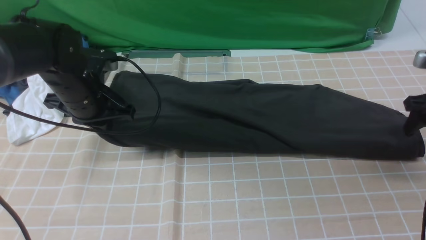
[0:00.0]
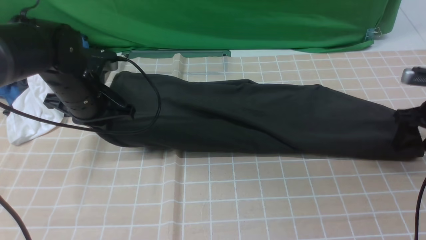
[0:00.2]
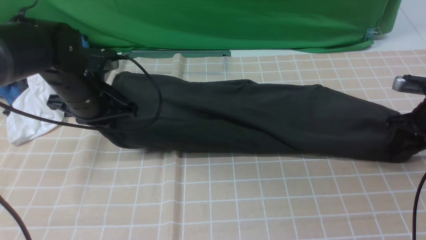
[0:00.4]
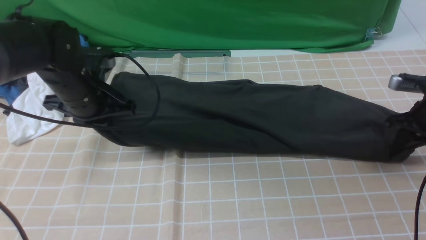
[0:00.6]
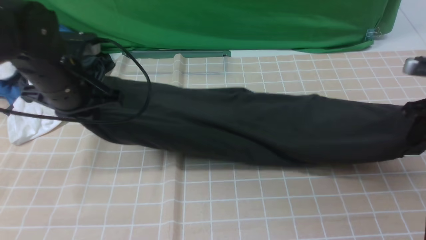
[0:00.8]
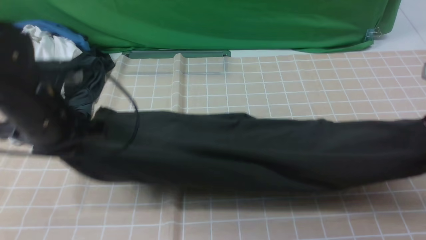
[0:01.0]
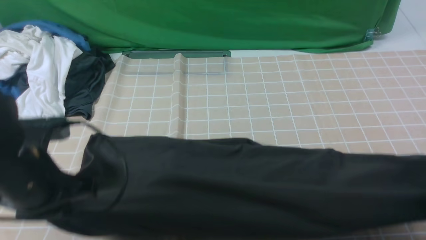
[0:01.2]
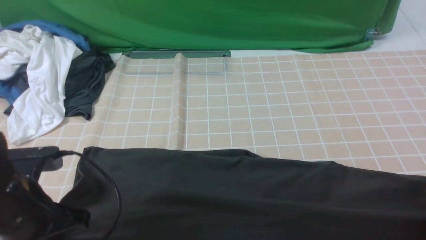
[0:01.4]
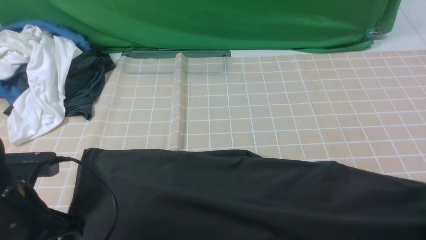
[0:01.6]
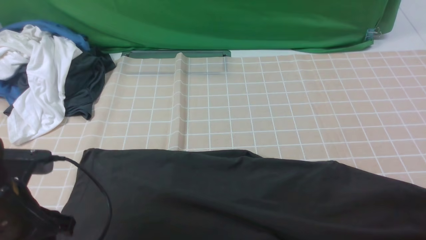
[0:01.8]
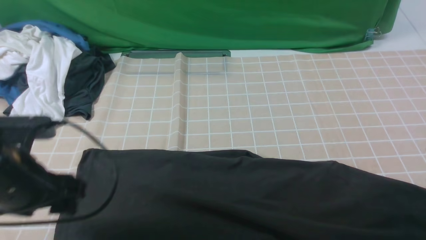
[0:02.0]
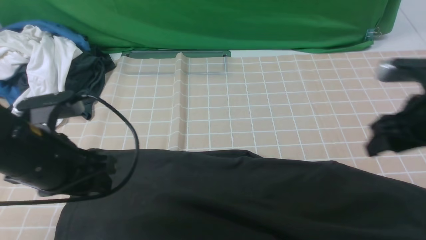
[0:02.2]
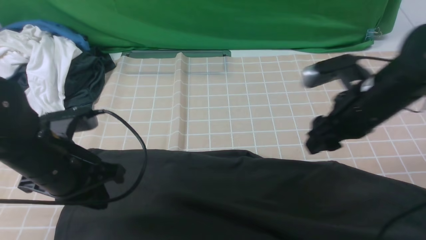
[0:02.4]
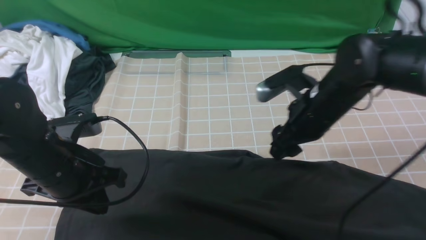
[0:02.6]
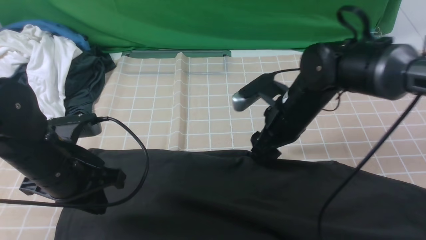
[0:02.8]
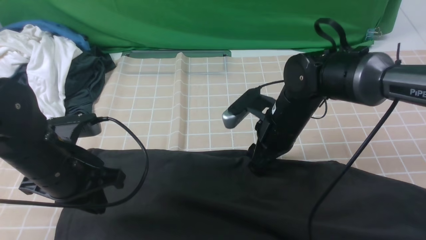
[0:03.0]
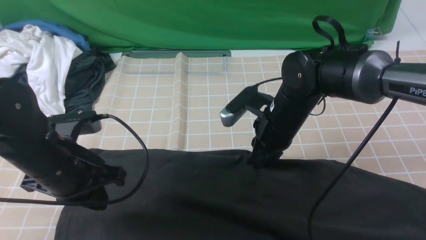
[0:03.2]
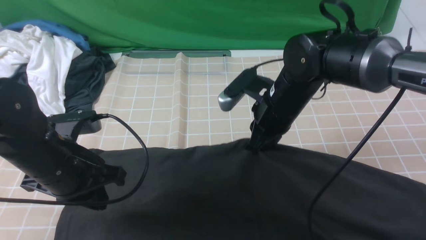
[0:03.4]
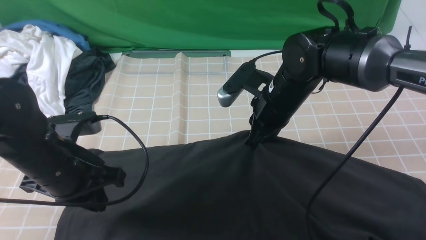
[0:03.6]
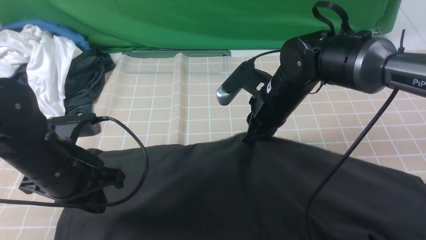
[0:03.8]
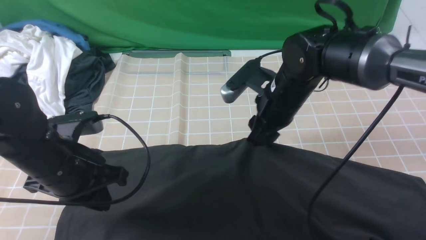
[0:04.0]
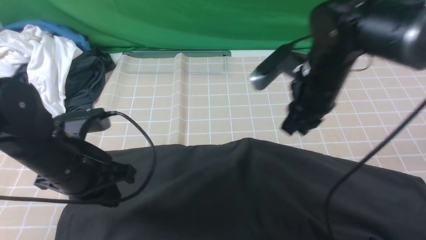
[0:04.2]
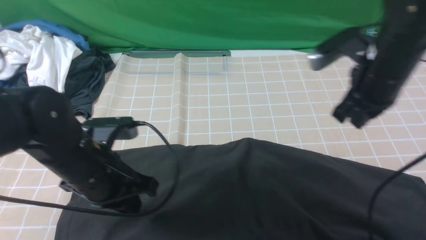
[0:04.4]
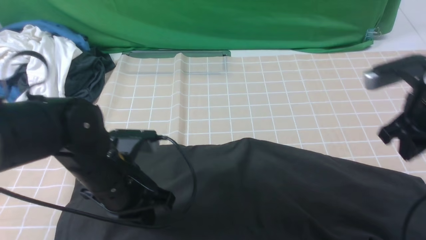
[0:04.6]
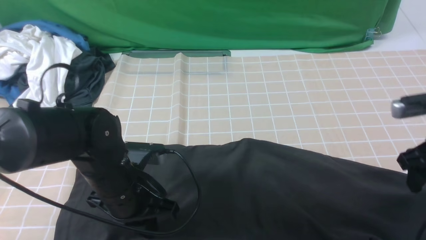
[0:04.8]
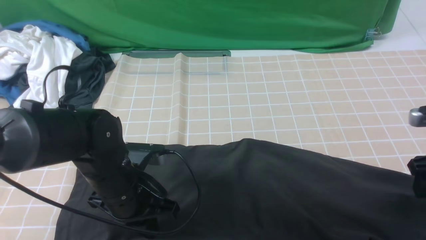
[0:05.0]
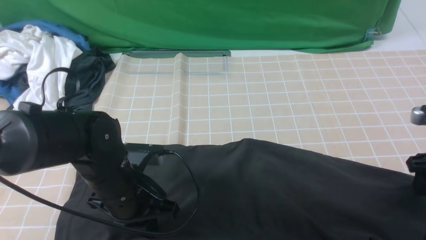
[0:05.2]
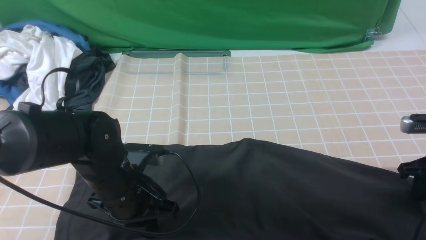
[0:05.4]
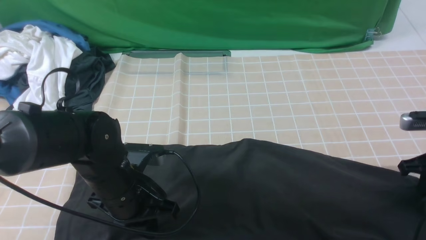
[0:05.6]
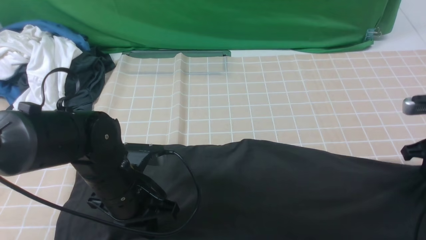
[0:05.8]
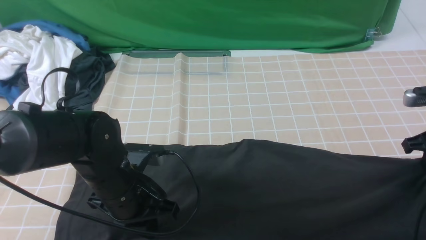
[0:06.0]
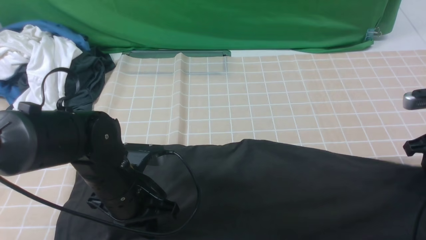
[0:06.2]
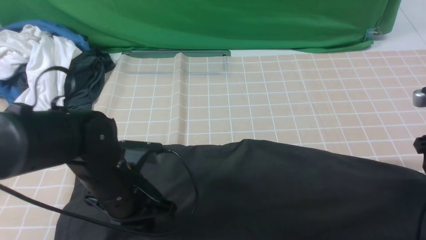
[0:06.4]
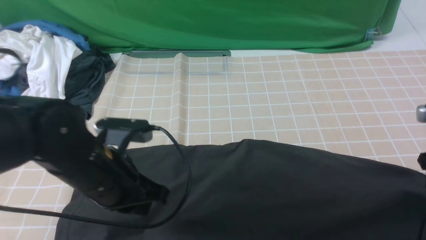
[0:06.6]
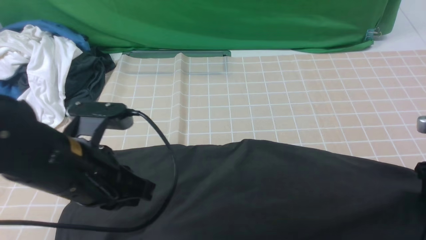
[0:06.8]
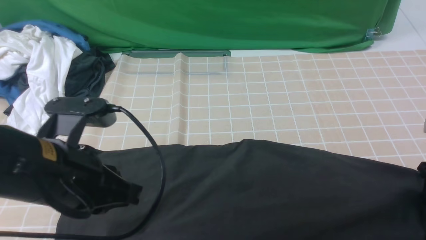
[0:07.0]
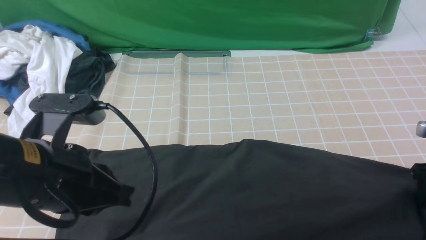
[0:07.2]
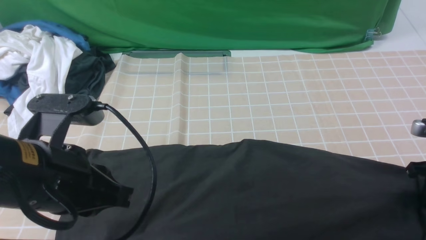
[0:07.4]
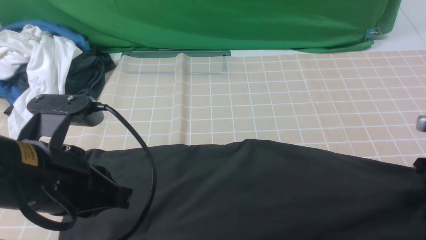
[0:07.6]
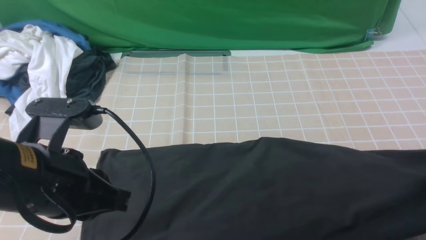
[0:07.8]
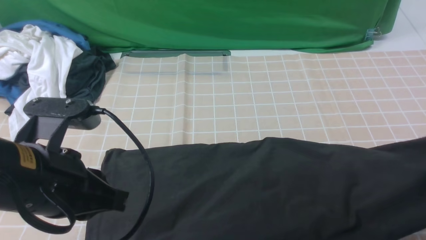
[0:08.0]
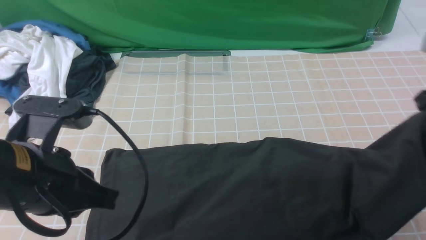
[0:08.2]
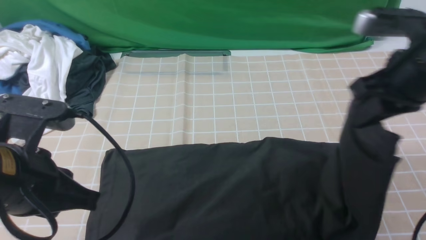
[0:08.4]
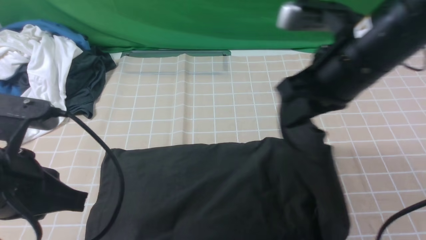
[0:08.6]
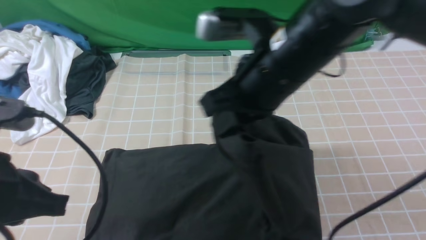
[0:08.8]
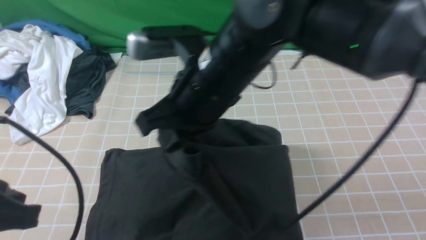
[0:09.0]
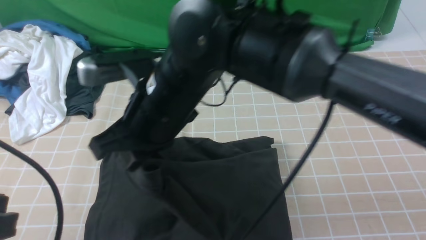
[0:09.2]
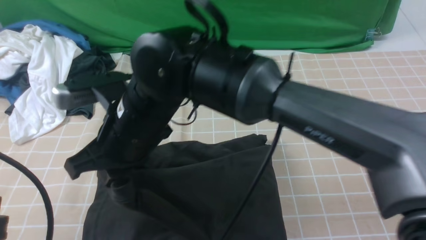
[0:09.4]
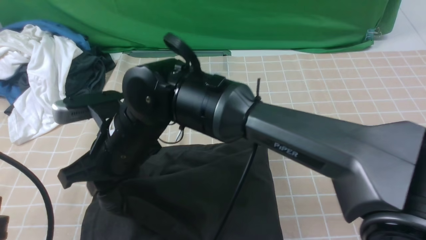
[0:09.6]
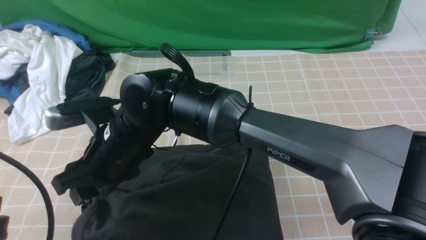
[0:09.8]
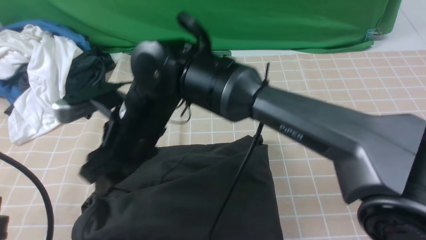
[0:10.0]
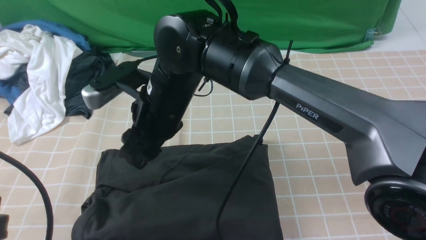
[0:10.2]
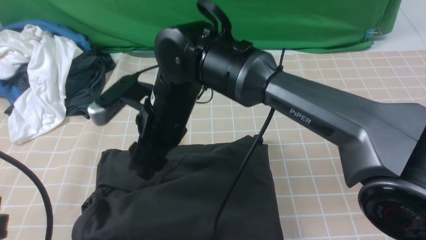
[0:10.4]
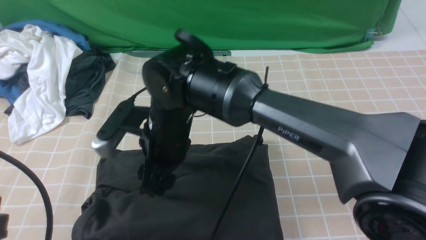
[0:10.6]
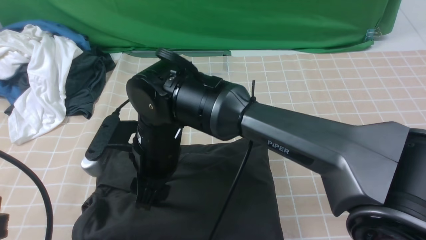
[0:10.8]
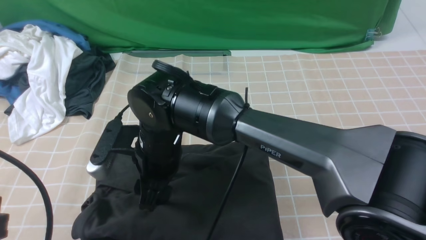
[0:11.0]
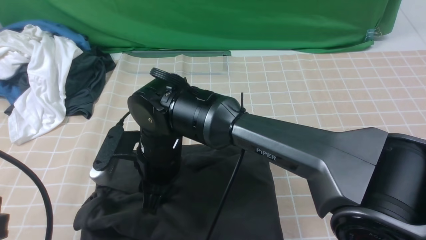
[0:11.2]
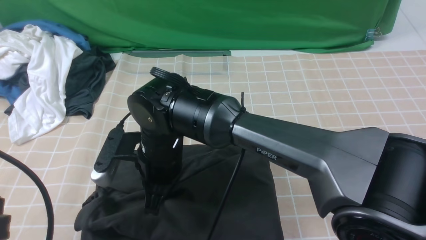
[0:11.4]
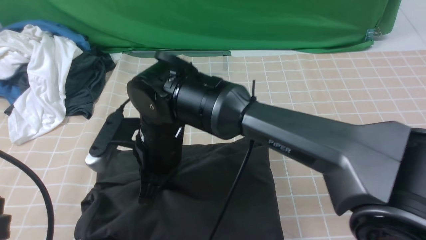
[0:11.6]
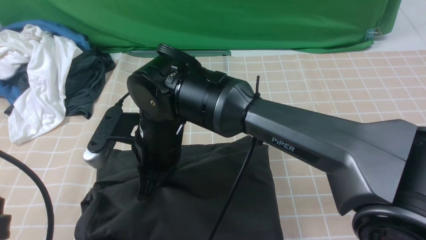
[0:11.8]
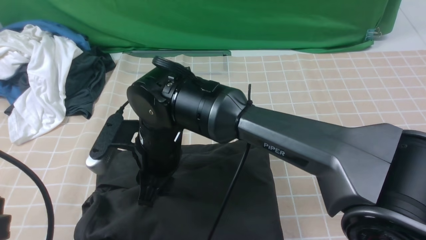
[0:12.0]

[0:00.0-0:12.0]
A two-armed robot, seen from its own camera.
Step, 0:00.0 to 0:07.4: use the right arm to clamp the right edge of the fabric.
Step, 0:07.6 to 0:10.0: use the right arm to drag the right edge of the fabric to the left and folds it over the left edge.
0:00.0 to 0:01.6: The grippers both shift backward by roughly 15 cm. The left gripper opens its fingers. The right gripper closes up.
0:01.6 to 0:03.0: The left gripper shifts roughly 5 cm forward, and closes up, while the right gripper goes approximately 30 cm to the left and forward, and opens, then closes again.
0:03.0 to 0:04.4: The right gripper goes some 15 cm to the right and upward, and closes its fingers.
0:04.4 to 0:06.0: The left gripper changes place by some 5 cm; the right gripper heads to the right and downward, covering roughly 15 cm, and opens and closes again.
0:06.0 to 0:07.6: The left gripper goes roughly 15 cm upward and backward, while the right gripper opens and closes again.
0:07.6 to 0:09.0: The left gripper heads to the left, covering roughly 5 cm. The right gripper travels to the left by approximately 40 cm.
0:09.0 to 0:10.4: The right gripper heads downward and to the left, covering approximately 10 cm, and opens up.
0:10.4 to 0:12.0: The right gripper closes.

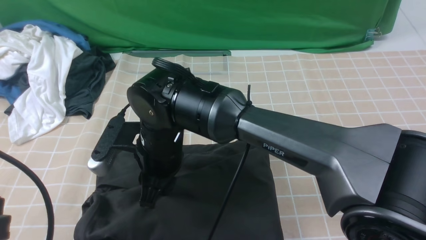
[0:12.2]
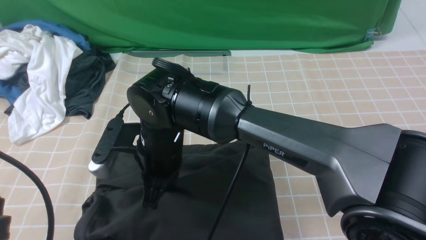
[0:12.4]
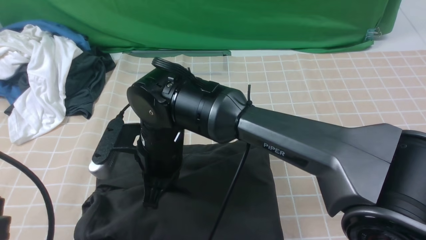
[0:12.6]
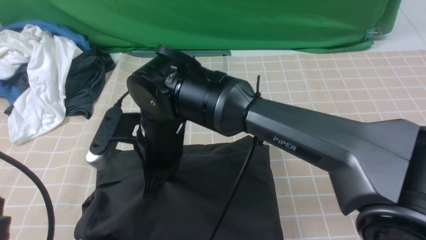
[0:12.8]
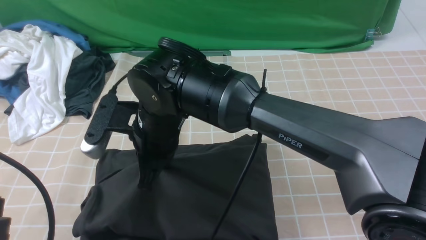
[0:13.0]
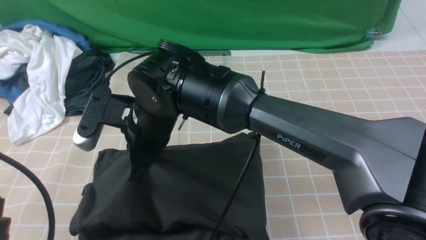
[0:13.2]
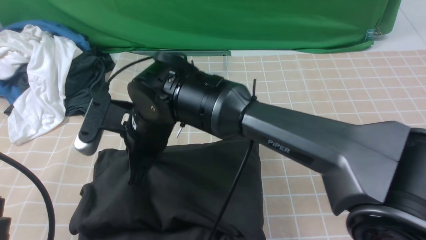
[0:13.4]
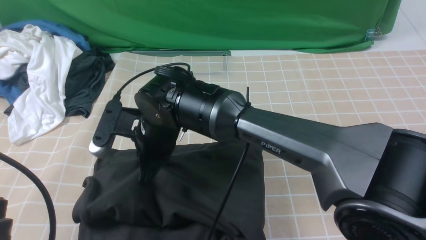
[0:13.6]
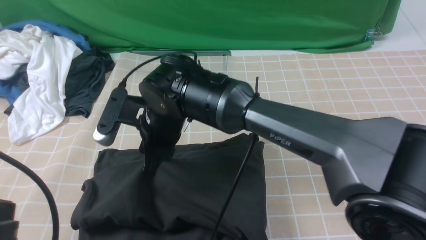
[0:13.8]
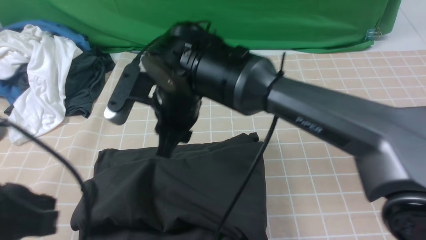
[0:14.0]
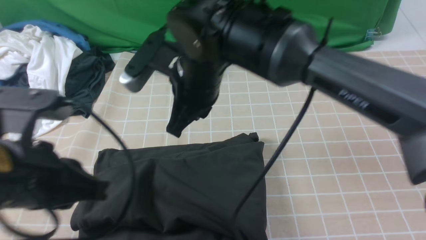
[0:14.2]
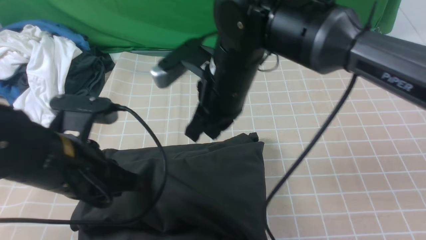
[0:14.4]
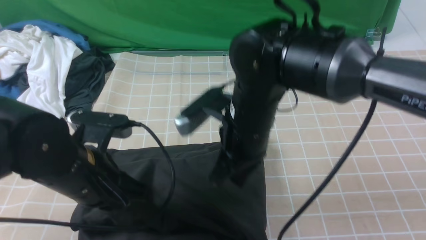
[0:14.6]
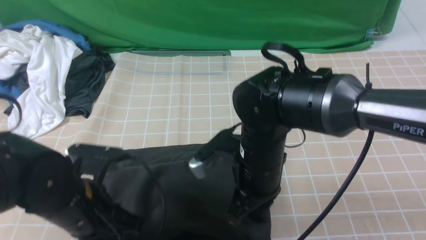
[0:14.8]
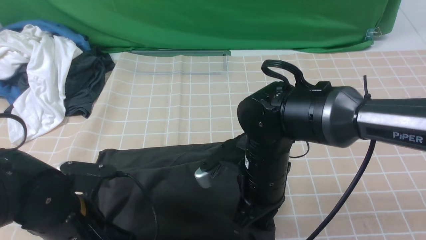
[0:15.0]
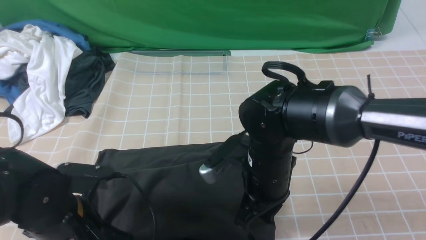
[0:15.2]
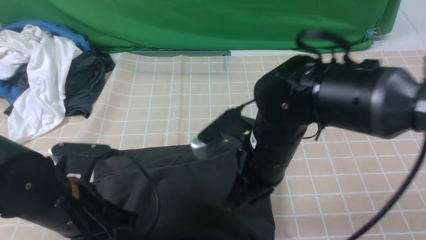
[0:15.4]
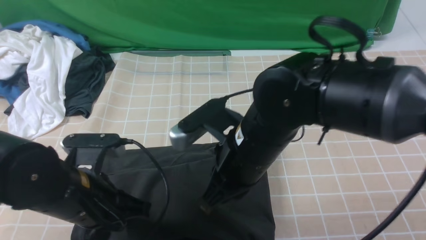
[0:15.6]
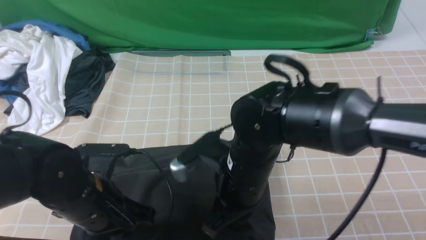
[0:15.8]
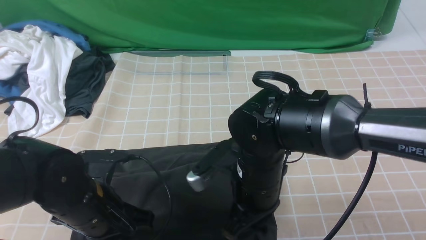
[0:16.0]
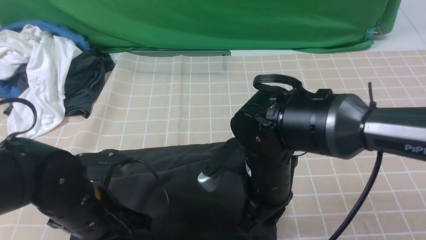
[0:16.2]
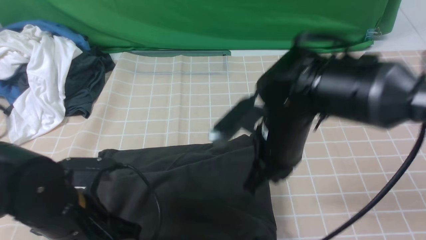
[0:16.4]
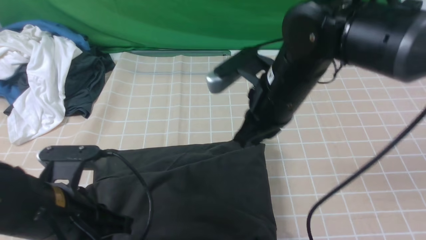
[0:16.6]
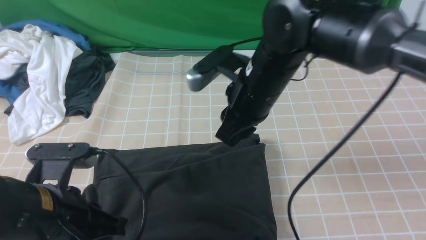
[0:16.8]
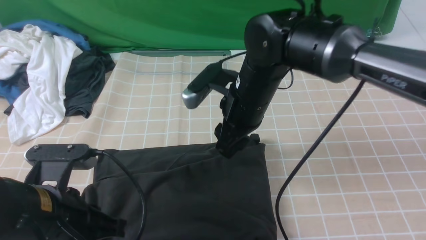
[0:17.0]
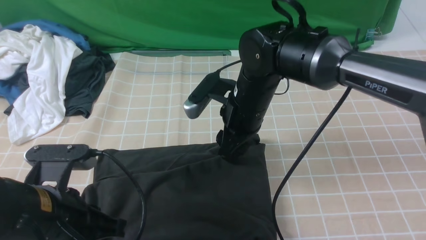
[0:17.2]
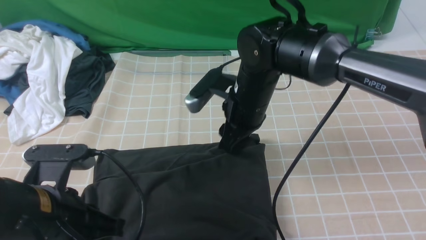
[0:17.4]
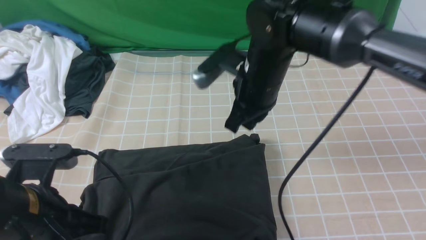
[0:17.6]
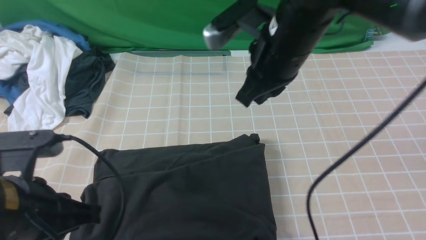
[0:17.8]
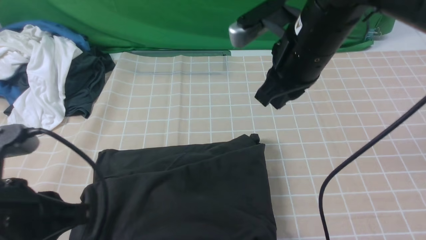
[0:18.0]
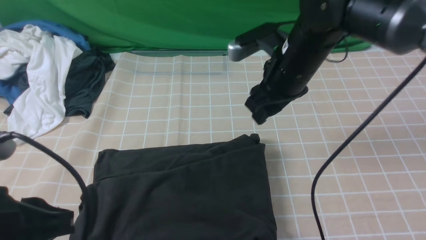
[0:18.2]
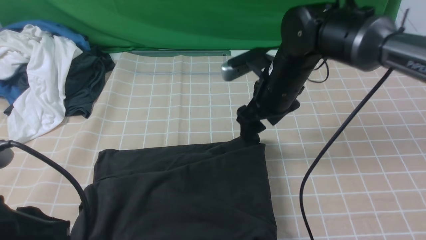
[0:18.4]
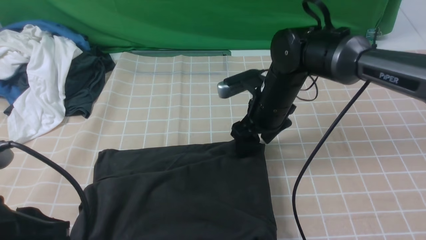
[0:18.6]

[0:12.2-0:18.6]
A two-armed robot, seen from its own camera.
0:13.8 to 0:15.4: The left gripper travels downward, forward and to the right by approximately 15 cm. The right gripper is displaced to the right and backward by about 15 cm, and closes.
0:15.4 to 0:17.0: The right gripper moves forward, approximately 10 cm, and opens up.
0:17.0 to 0:18.6: The right gripper goes upward and returns, some 10 cm each way, and closes, then reopens. Meanwhile the left gripper travels upward and backward by approximately 10 cm.
